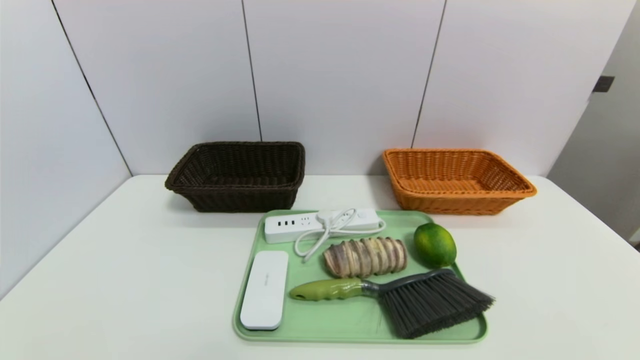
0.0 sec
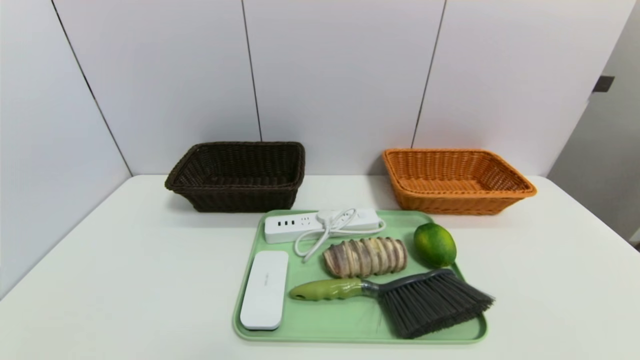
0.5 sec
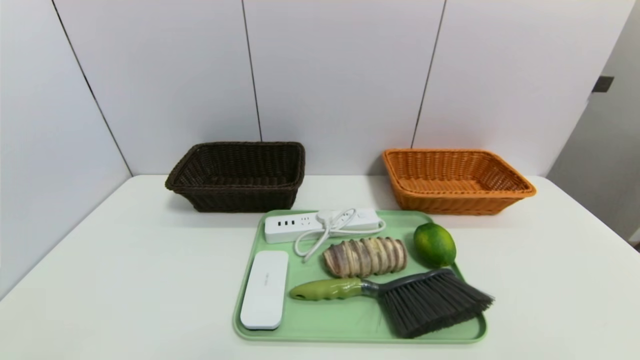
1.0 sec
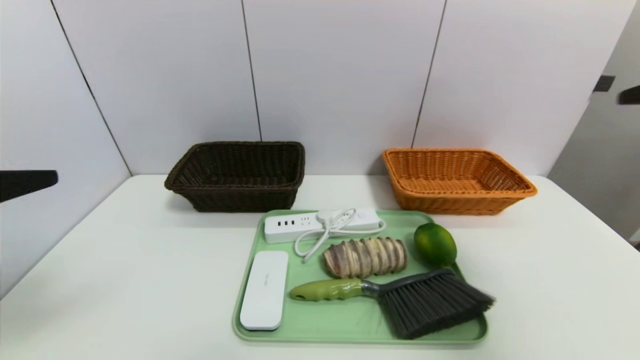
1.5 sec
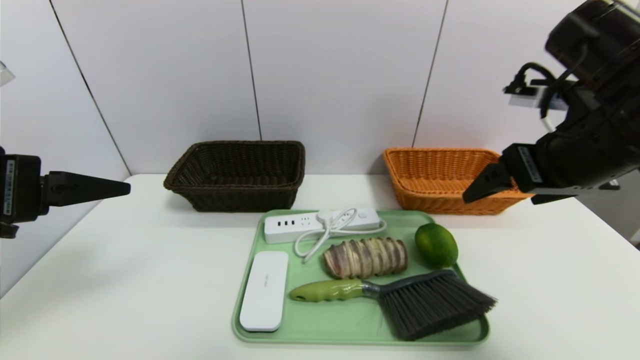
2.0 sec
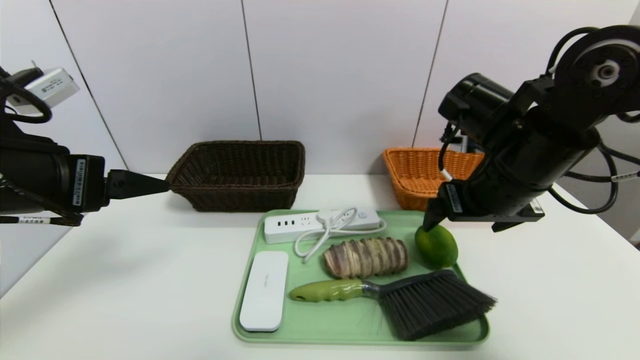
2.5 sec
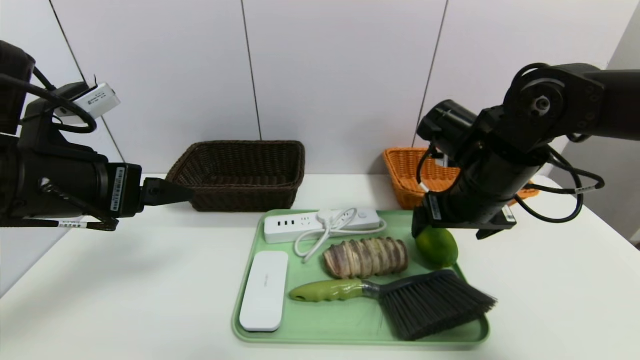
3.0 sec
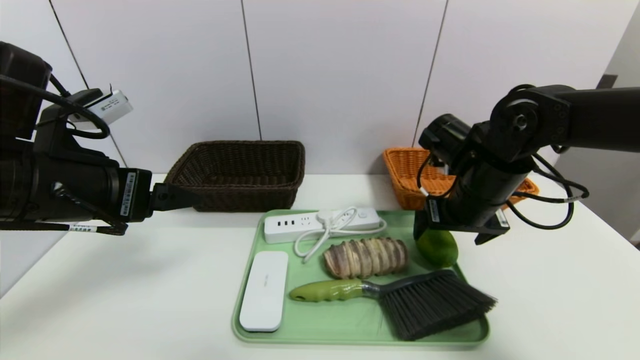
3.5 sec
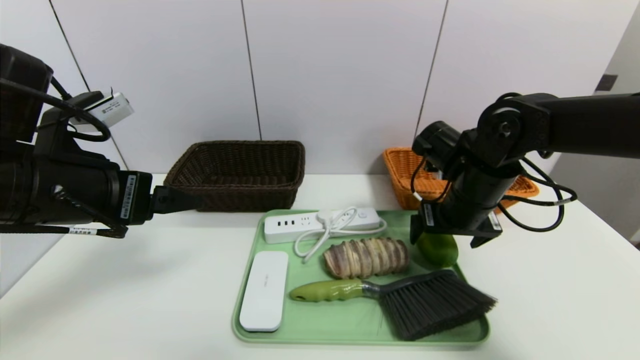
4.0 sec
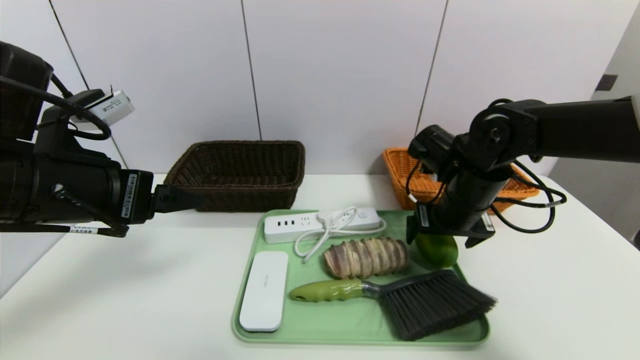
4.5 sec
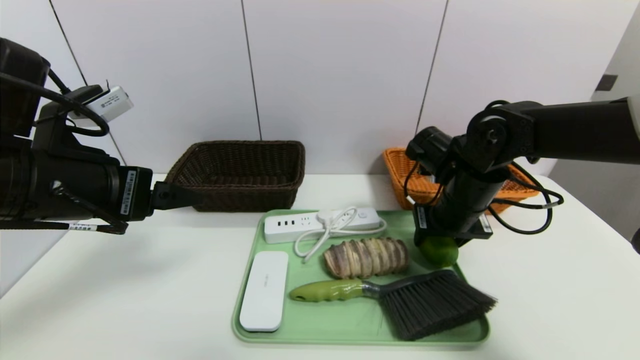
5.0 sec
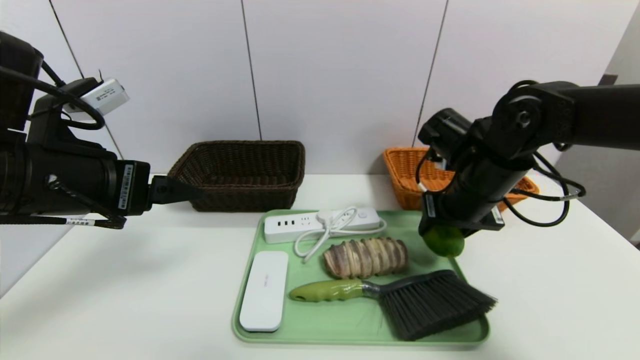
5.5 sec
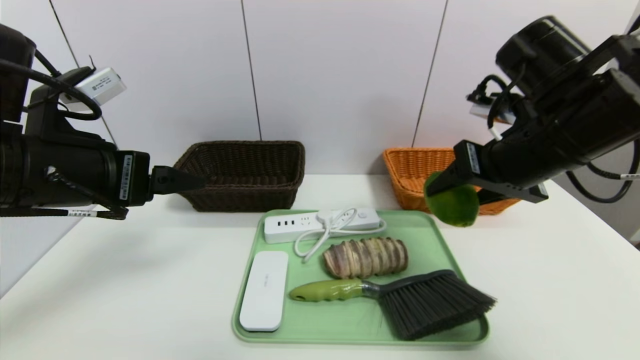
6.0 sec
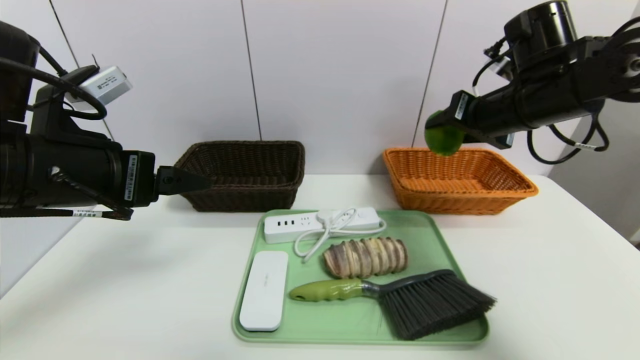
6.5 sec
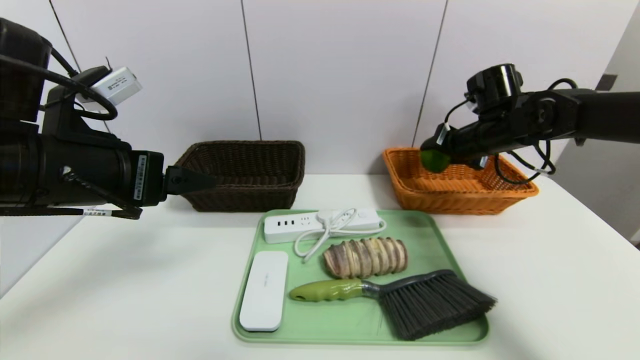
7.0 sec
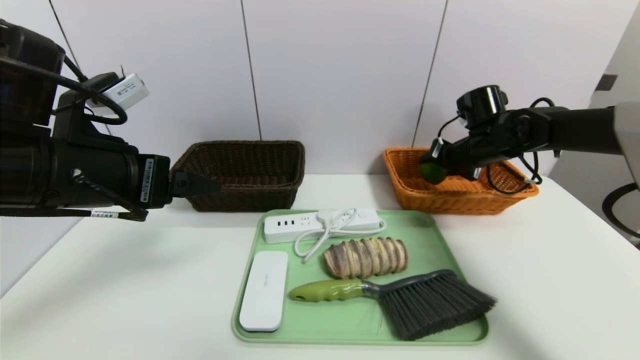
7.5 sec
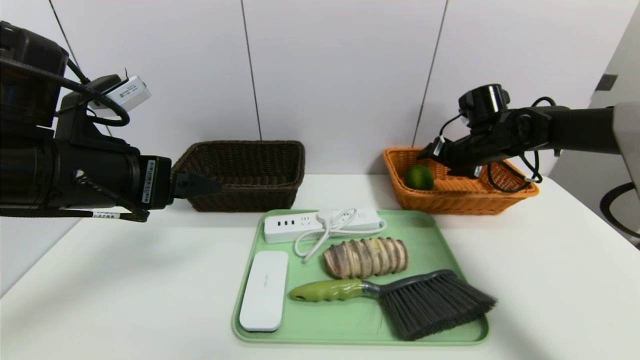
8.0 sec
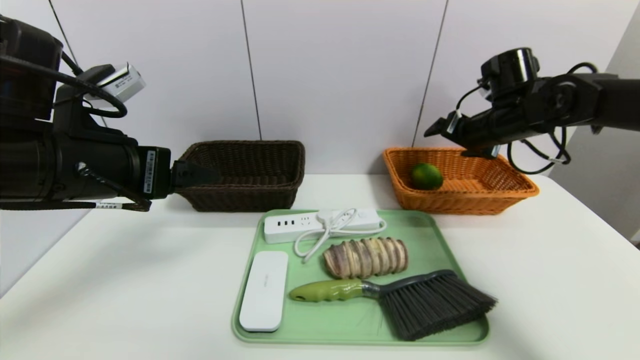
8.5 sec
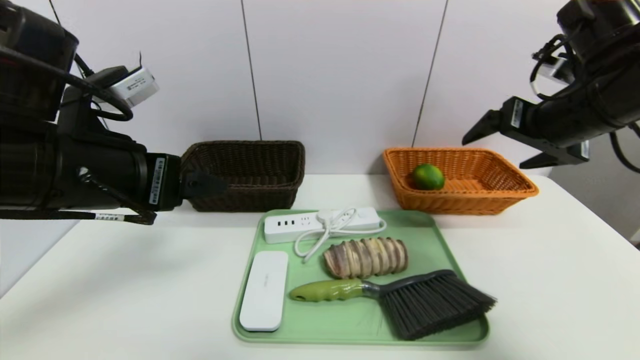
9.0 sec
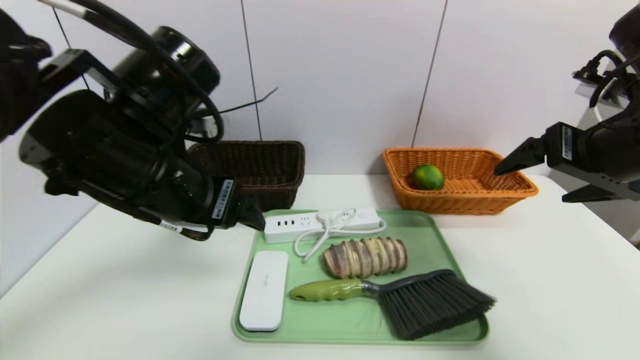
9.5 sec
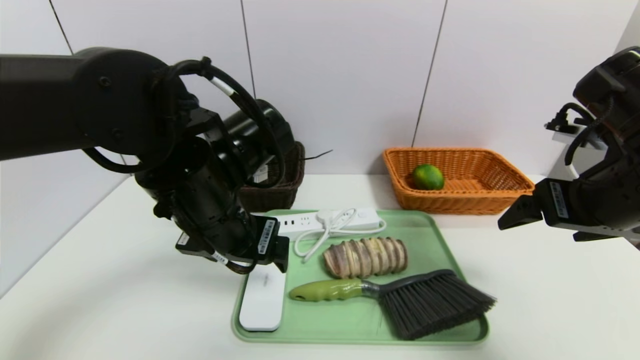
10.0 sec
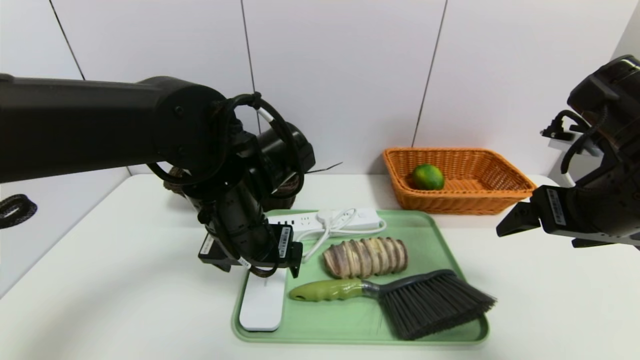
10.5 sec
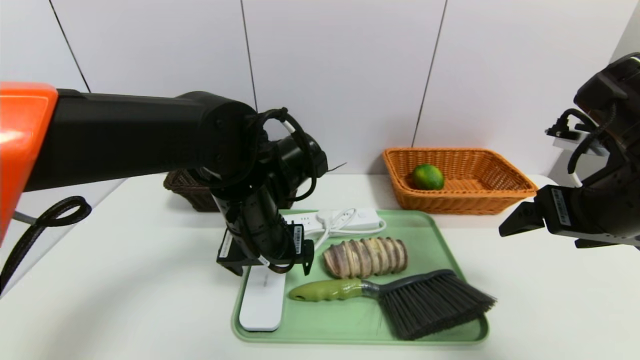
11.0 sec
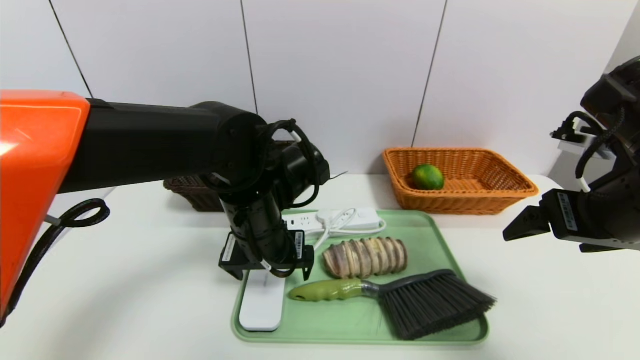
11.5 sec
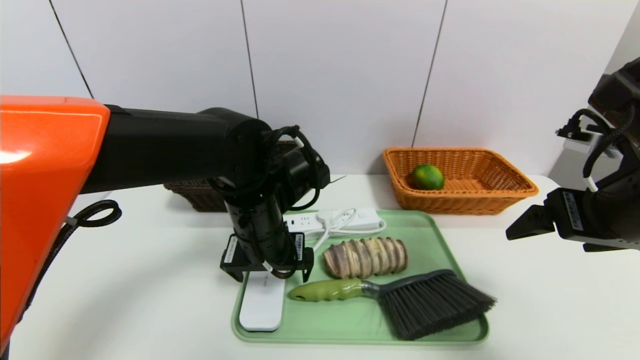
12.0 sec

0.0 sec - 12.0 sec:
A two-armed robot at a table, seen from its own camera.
Task of the whole recording: place the food in the right basket with the right gripper, and place the non food items in the left basket with the left gripper.
Step, 0.0 sec - 8.0 sec: Grasp the lime and put it in the right basket.
0.0 sec - 2.0 sec: The left gripper moves upward and forward, roughly 30 cm; the right gripper travels forward, upward and to the left by about 35 cm.
2.0 sec - 4.0 sec: The left gripper shifts by roughly 5 cm, while the right gripper shifts some 15 cm downward and forward.
4.0 sec - 6.0 sec: The right gripper heads upward and backward, covering about 15 cm, and closes its fingers.
6.0 sec - 8.0 sec: The right gripper travels forward and downward by about 20 cm.
8.0 sec - 10.0 sec: The left gripper heads to the right, covering some 10 cm; the right gripper heads backward, covering some 25 cm.
10.0 sec - 12.0 sec: The left gripper goes roughly 5 cm downward.

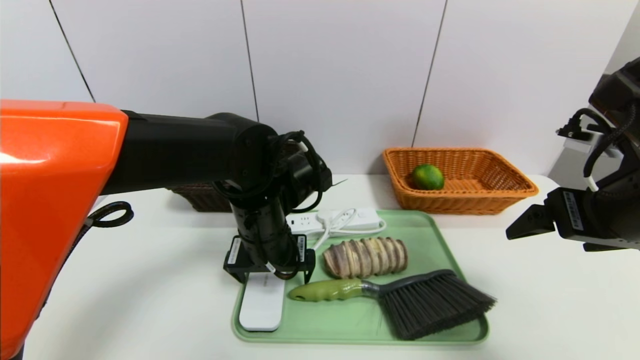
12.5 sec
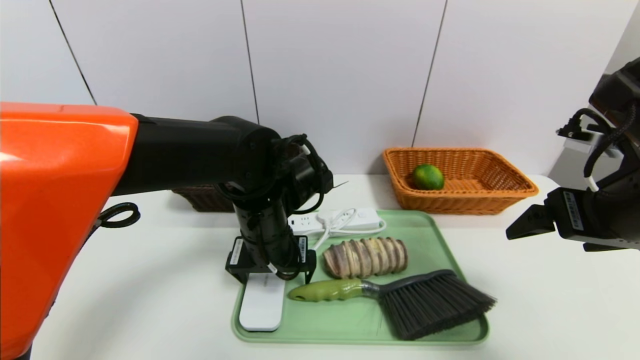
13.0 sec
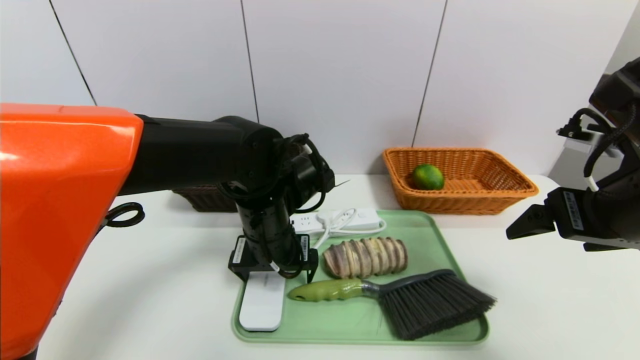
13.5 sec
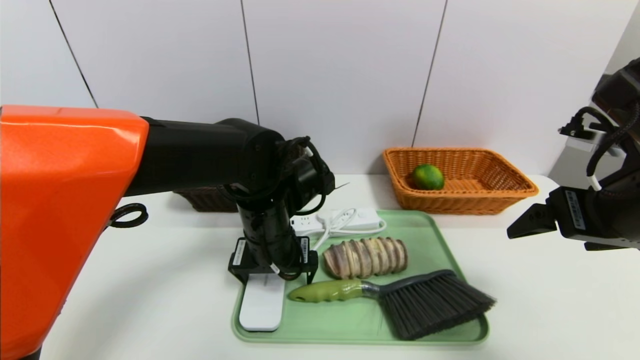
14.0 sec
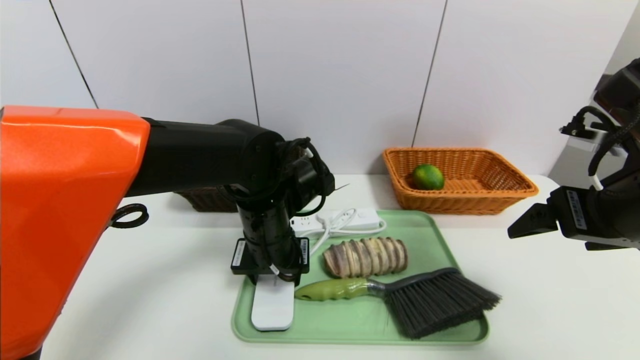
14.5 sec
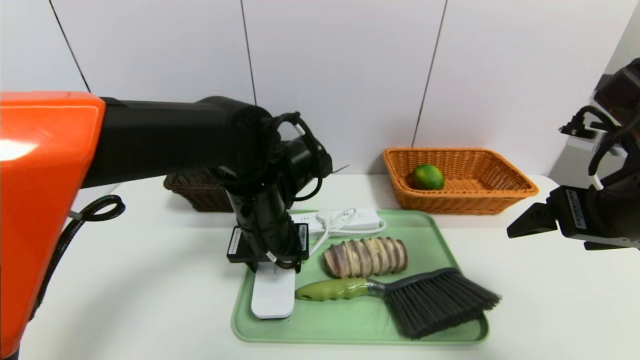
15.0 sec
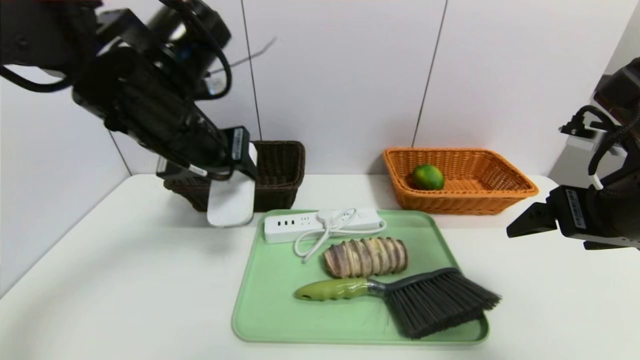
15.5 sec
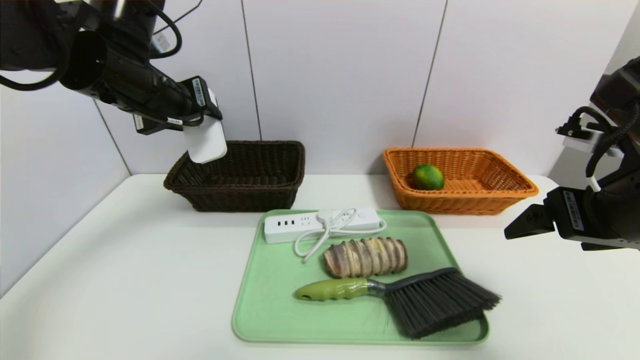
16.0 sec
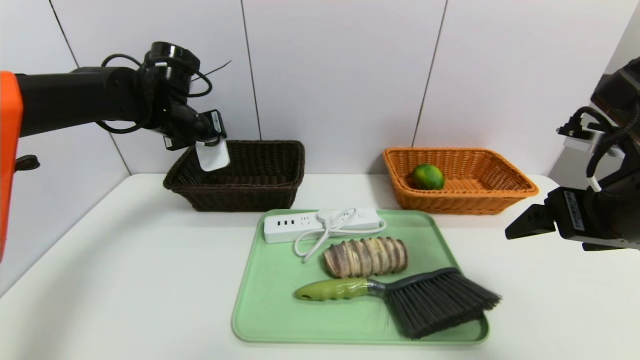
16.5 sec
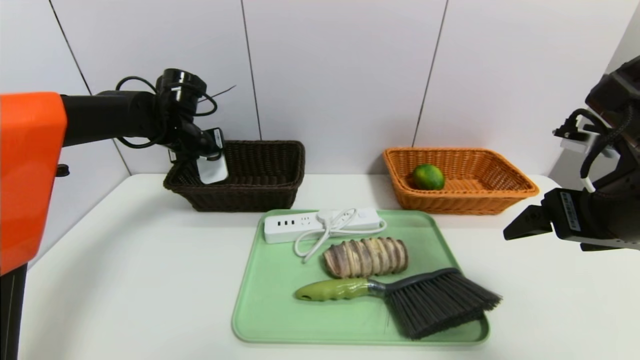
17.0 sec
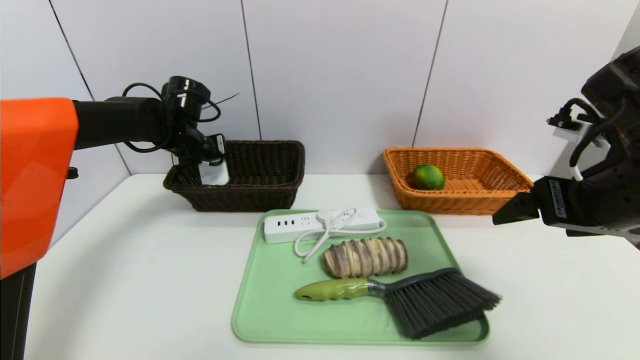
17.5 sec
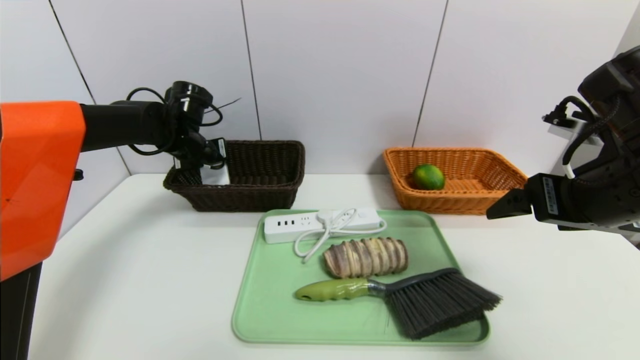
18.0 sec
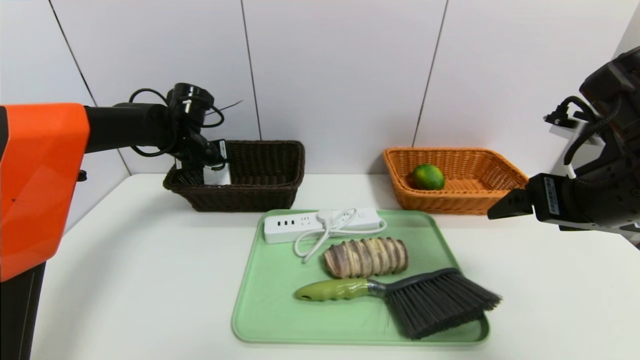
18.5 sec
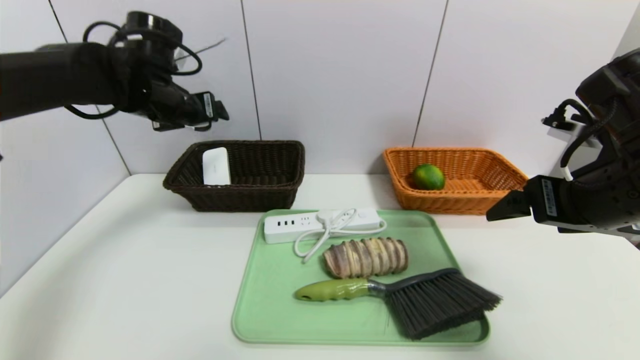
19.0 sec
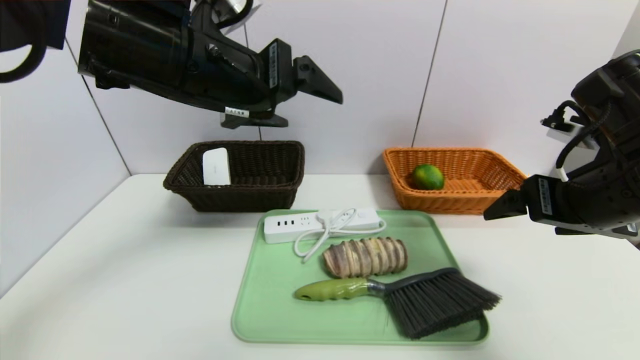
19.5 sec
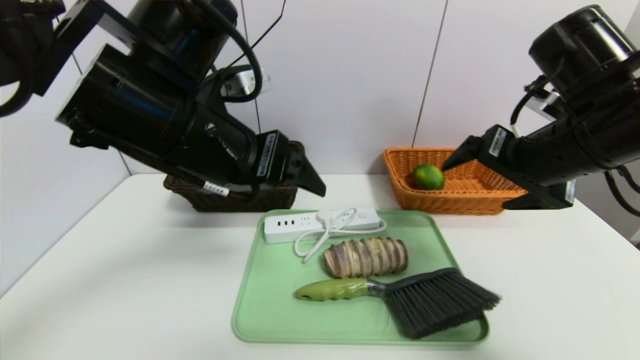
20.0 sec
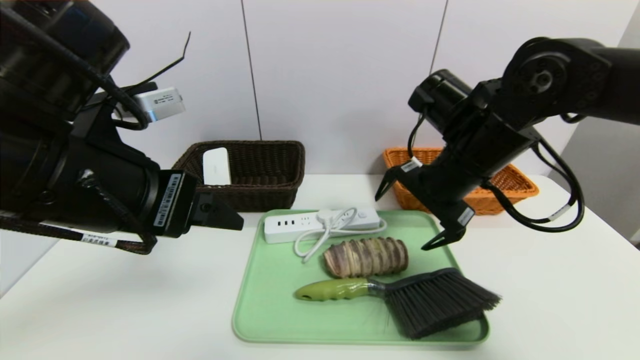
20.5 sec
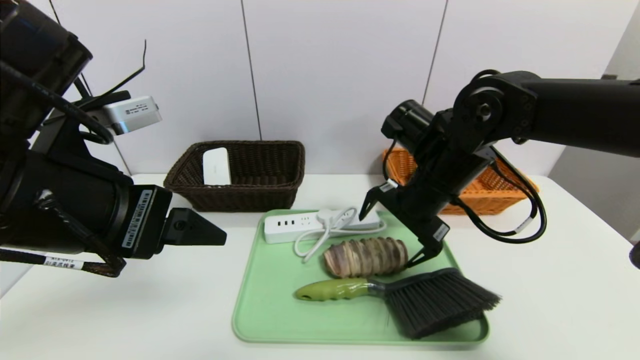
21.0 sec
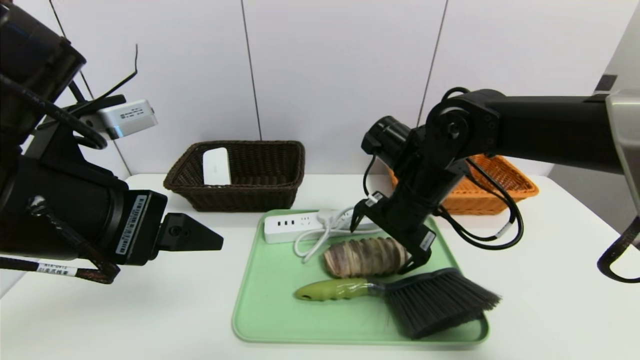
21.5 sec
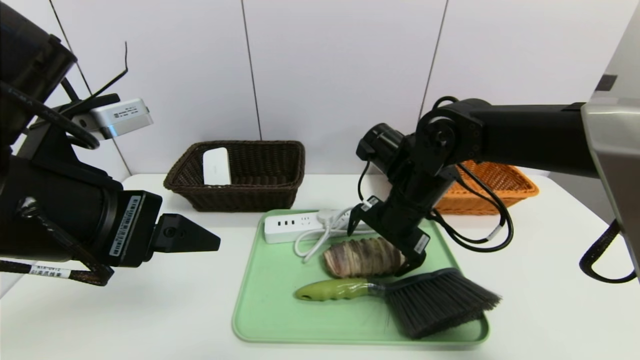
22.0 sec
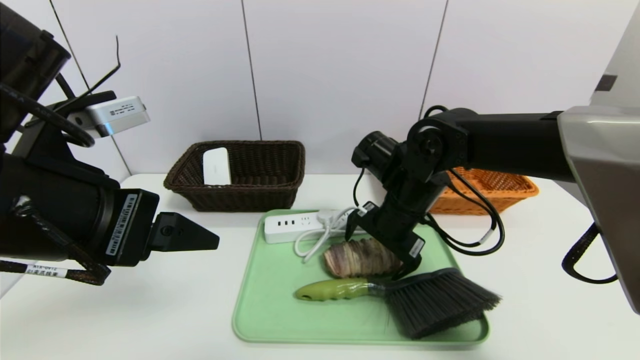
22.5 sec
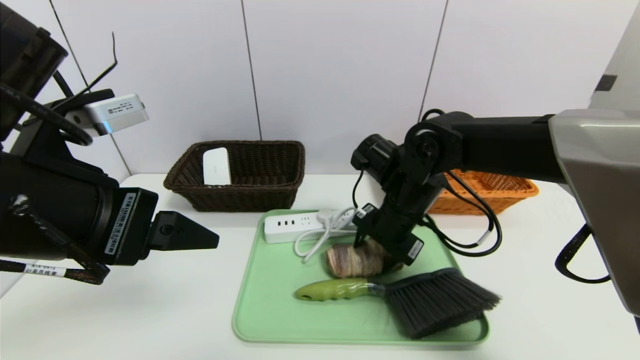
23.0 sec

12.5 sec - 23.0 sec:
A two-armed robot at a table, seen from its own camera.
Task of the whole recording: place the food in the right basket with the right gripper, and place the non food items in the left basket with the left gripper.
Step, 12.5 sec - 18.5 sec: Grasp the white eraser and put it in the left basket.
12.5 sec - 14.5 sec: The left gripper closes up.
14.5 sec - 16.5 sec: The left gripper shifts some 25 cm to the left, forward and upward.
16.5 sec - 19.0 sec: The left gripper shifts by about 5 cm, and opens its fingers.
19.0 sec - 21.0 sec: The left gripper heads backward, covering approximately 25 cm; the right gripper is displaced to the left, forward and downward by about 15 cm.
21.0 sec - 23.0 sec: The right gripper changes place by approximately 5 cm, and closes its fingers.
